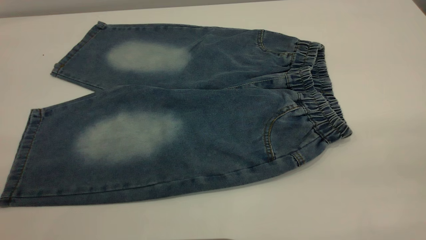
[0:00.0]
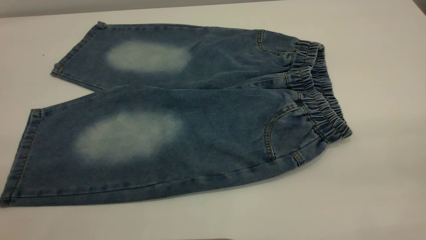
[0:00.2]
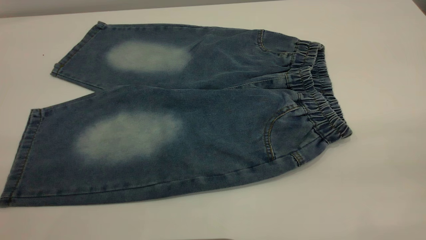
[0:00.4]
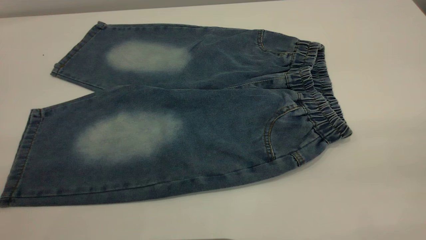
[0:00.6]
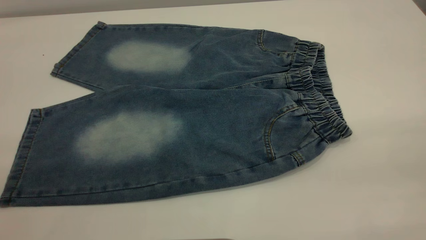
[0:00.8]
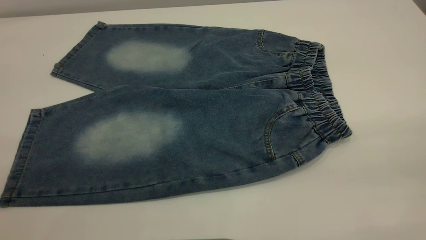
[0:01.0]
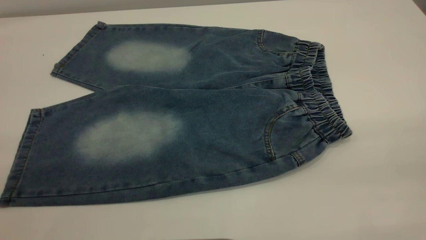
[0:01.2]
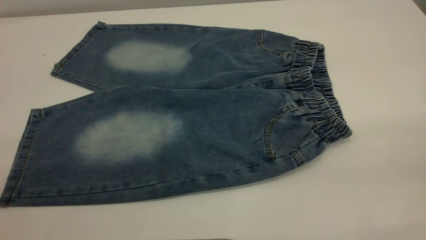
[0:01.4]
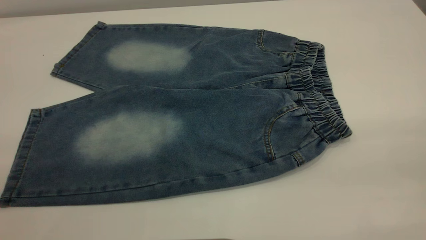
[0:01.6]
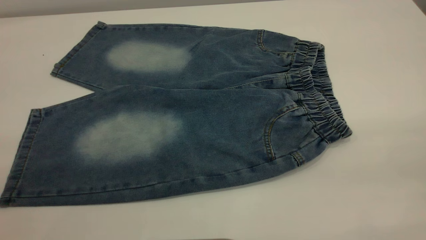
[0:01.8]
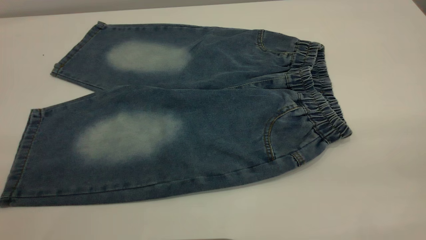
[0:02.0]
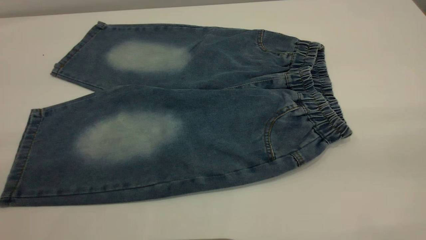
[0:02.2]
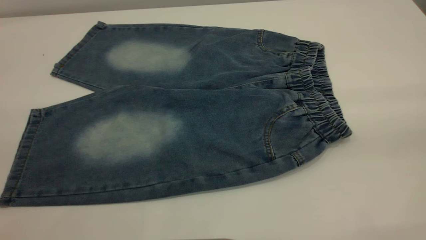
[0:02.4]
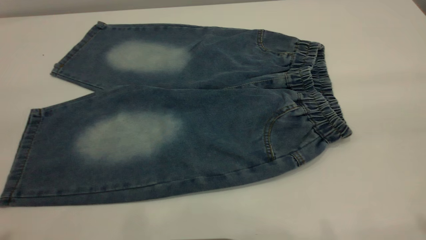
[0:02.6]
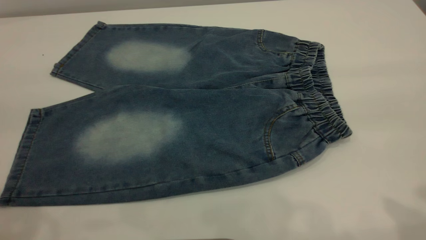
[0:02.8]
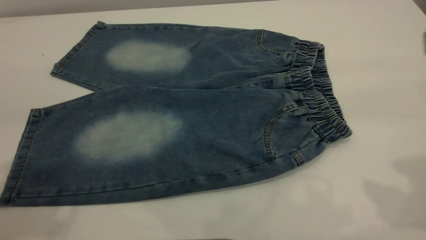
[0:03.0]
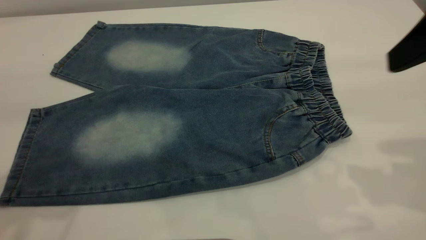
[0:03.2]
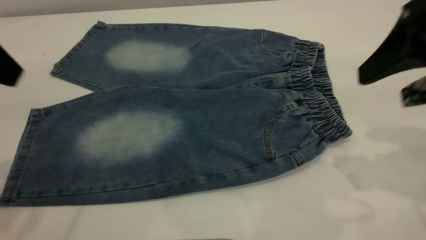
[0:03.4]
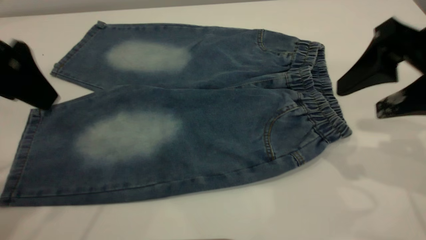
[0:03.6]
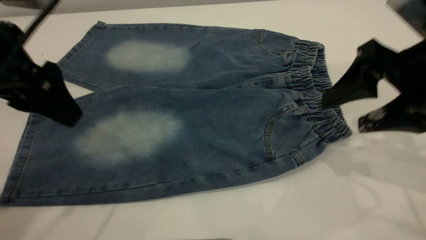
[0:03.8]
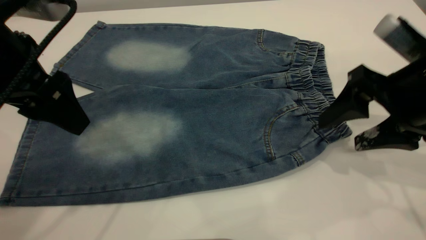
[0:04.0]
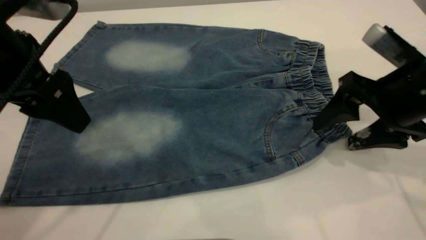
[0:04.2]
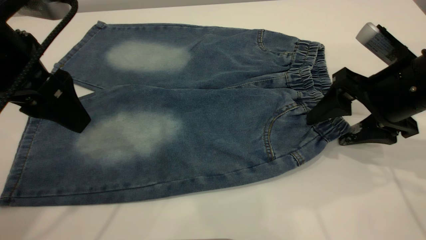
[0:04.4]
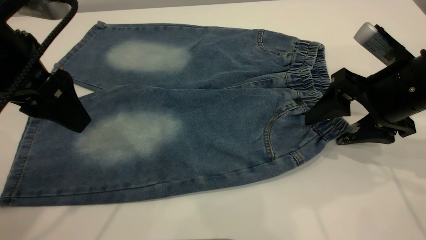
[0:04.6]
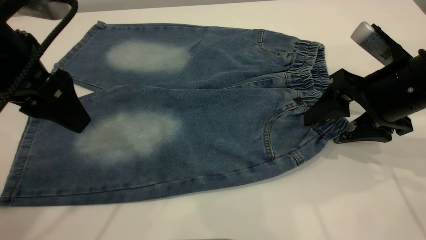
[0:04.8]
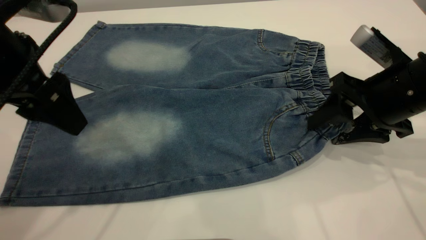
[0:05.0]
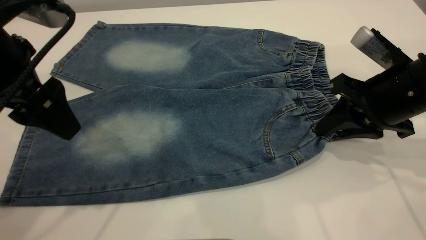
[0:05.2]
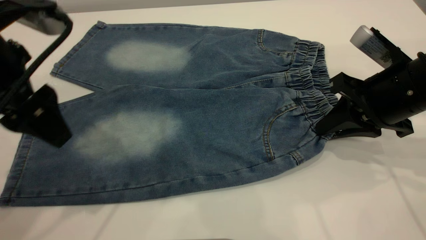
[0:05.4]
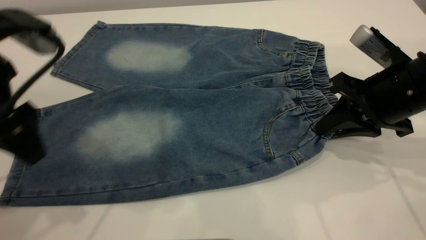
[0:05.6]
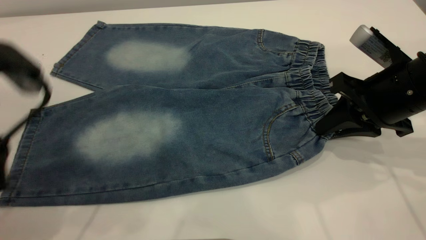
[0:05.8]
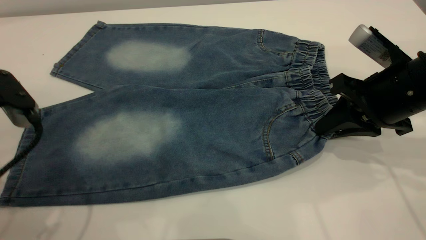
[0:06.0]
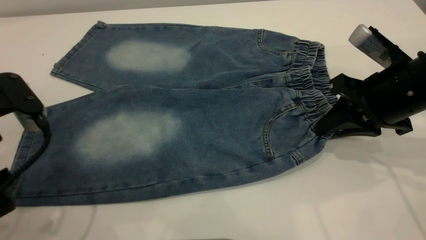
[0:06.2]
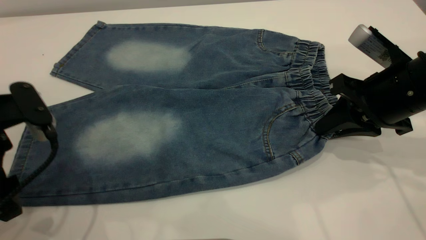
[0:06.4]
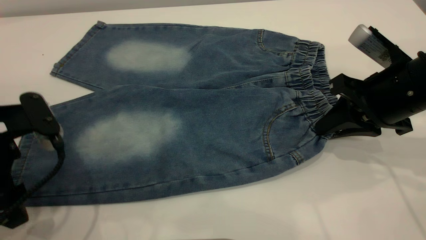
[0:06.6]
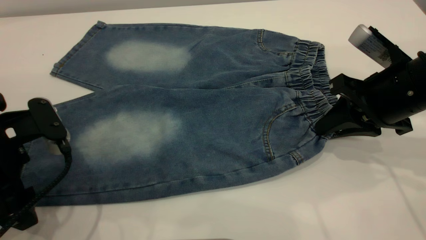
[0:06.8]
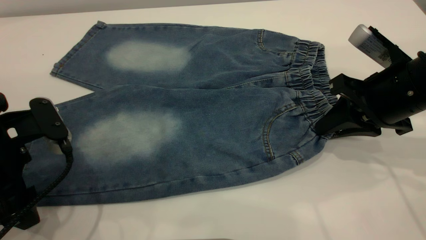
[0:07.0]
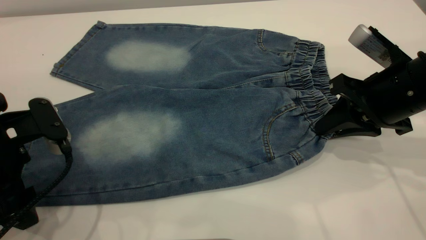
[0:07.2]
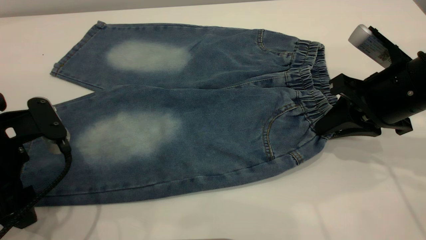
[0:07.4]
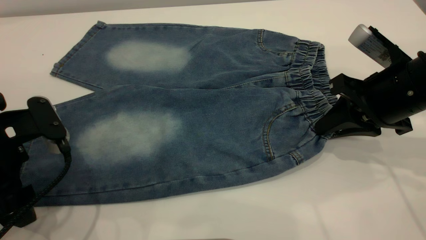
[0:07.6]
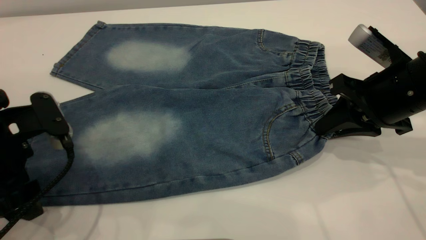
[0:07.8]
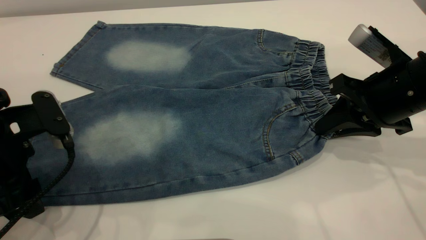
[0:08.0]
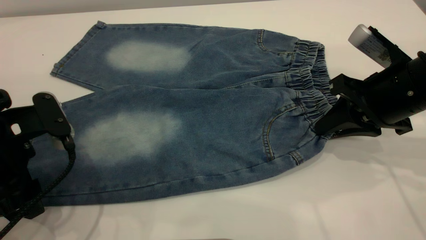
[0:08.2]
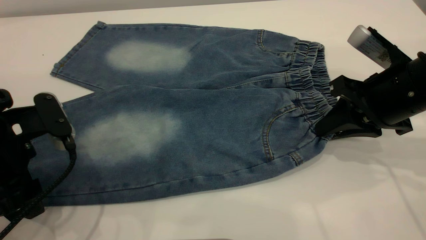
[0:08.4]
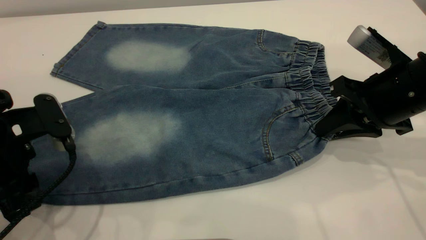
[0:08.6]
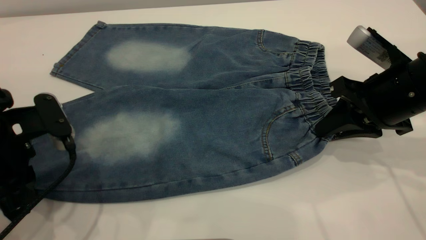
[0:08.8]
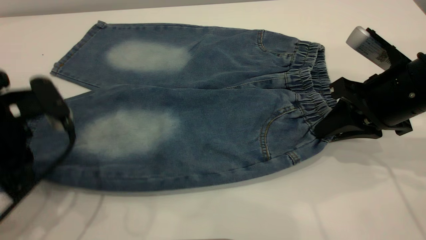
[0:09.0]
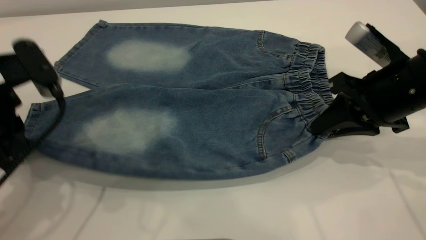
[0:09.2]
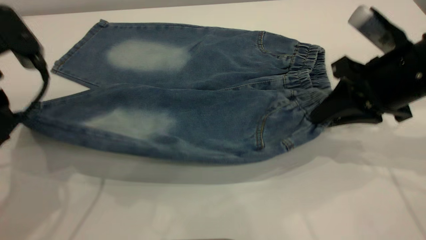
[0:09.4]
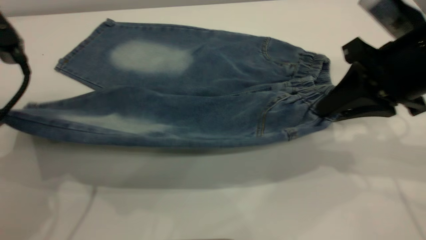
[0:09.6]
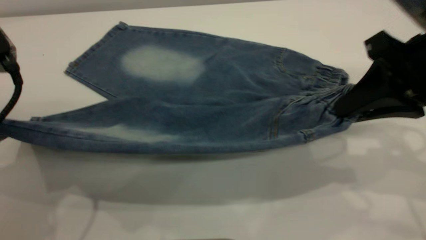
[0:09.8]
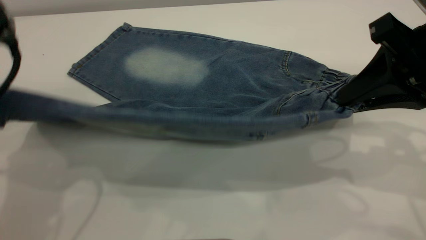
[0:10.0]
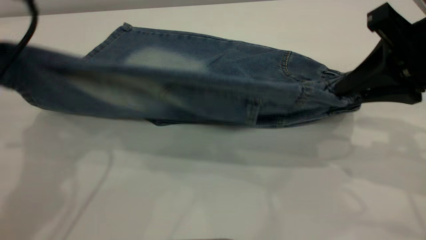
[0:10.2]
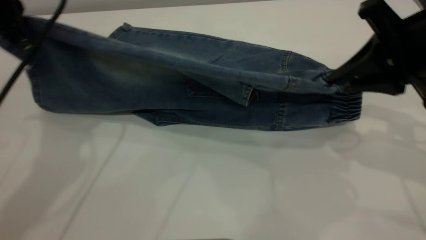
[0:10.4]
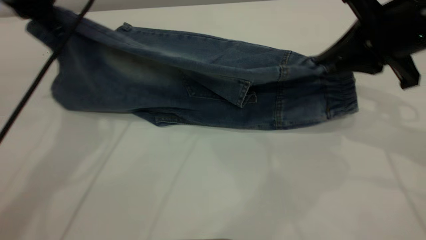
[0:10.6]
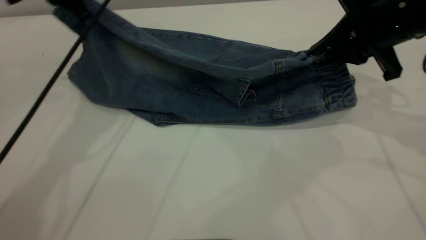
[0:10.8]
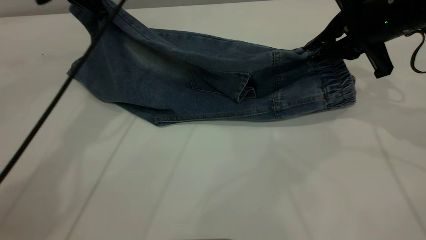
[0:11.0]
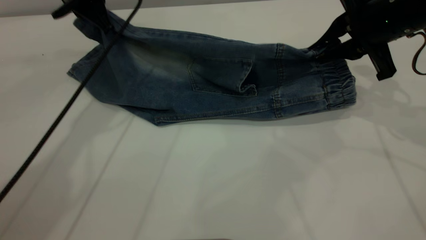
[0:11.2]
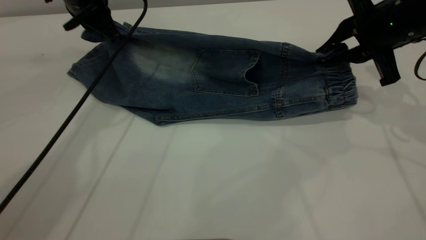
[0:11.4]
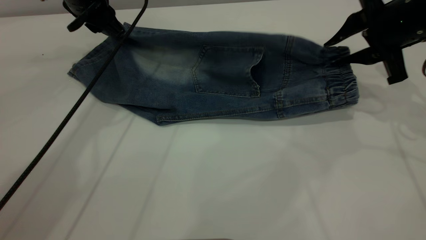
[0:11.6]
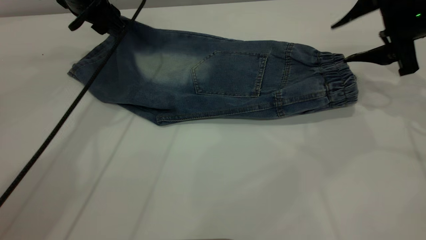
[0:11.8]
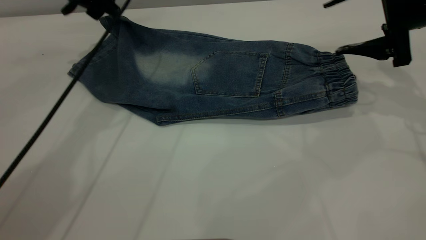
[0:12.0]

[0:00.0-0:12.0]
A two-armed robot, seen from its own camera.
Step, 0:00.0 to 0:11.8: Fold the bottom of the pants upward.
0:00.0 to 0:01.6: Both grippers stay about where they are.
0:03.0 to 0:04.4: The left gripper heads downward, forward and to the right, covering about 15 cm, while the right gripper travels downward and forward by roughly 20 cm.
0:04.4 to 0:06.0: The right gripper closes up, while the left gripper heads downward, covering approximately 5 cm.
0:06.0 to 0:07.6: The left gripper moves about 5 cm.
0:07.6 to 0:09.0: The left gripper closes its fingers.
0:09.0 to 0:10.4: The left gripper heads upward and forward, covering approximately 15 cm; the right gripper heads upward, covering approximately 10 cm.
0:10.4 to 0:12.0: The left gripper is displaced forward by roughly 15 cm, and opens. Meanwhile the right gripper heads forward, covering about 10 cm, and opens its fingers.

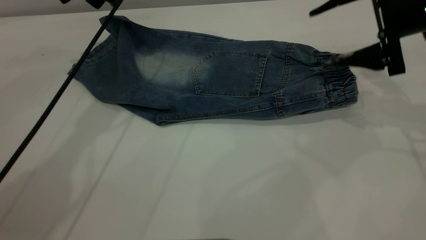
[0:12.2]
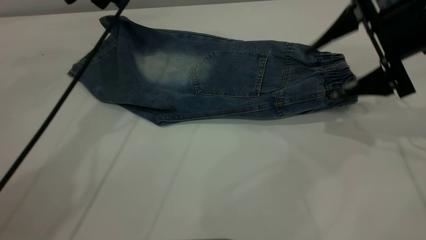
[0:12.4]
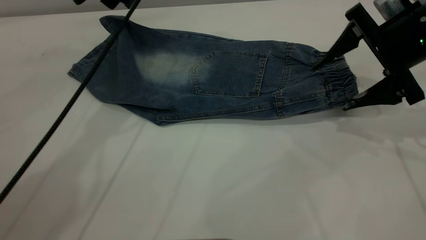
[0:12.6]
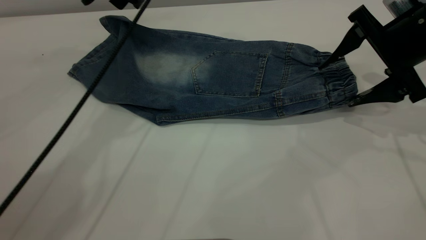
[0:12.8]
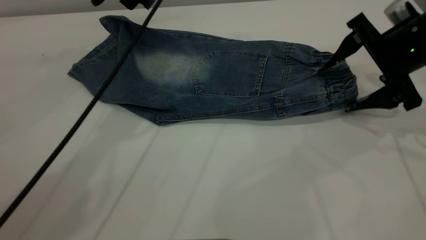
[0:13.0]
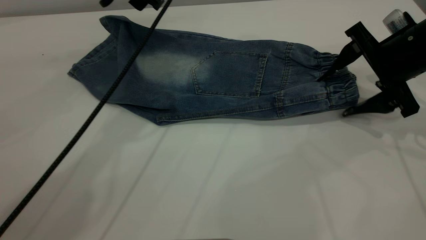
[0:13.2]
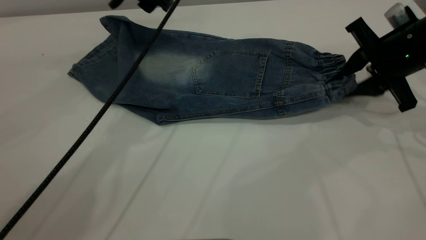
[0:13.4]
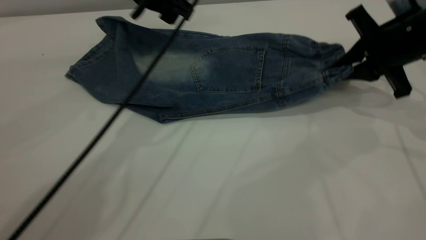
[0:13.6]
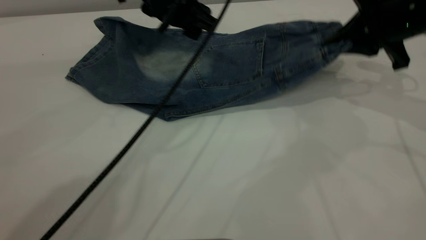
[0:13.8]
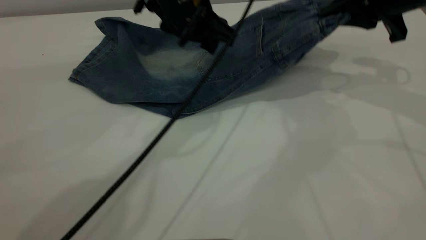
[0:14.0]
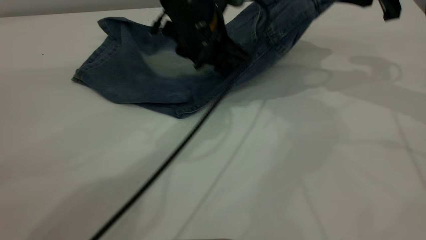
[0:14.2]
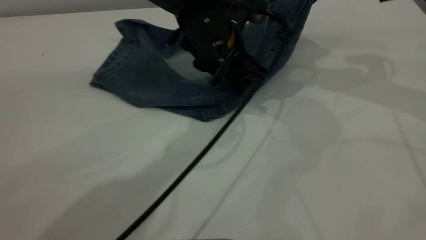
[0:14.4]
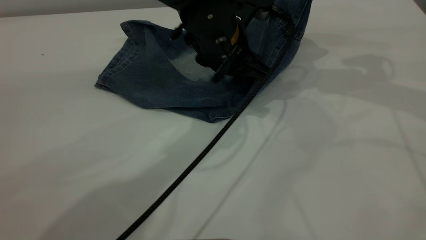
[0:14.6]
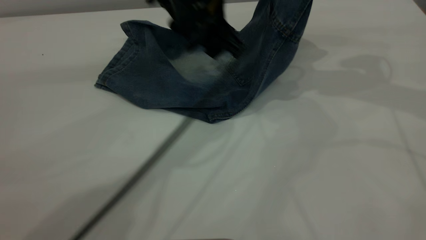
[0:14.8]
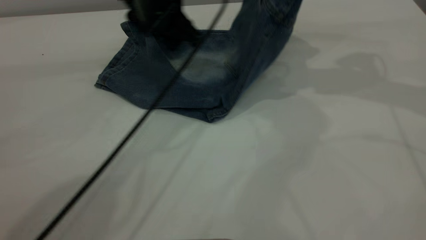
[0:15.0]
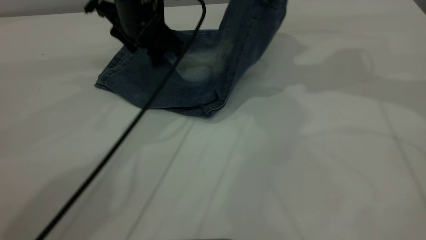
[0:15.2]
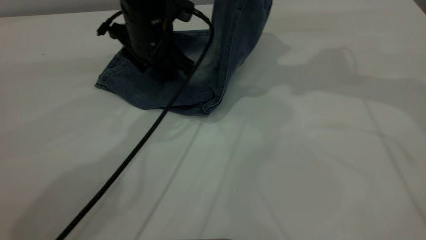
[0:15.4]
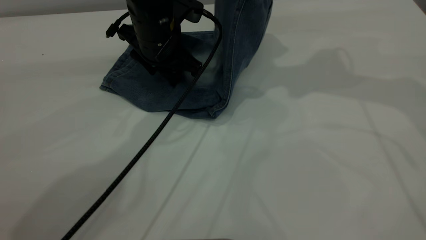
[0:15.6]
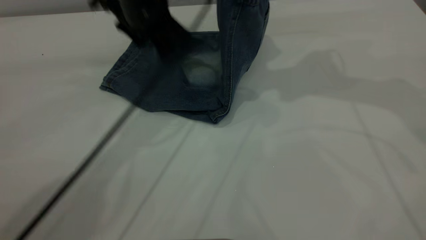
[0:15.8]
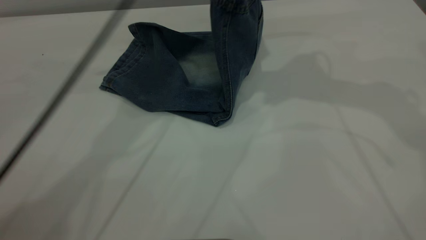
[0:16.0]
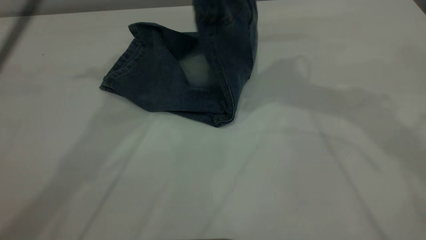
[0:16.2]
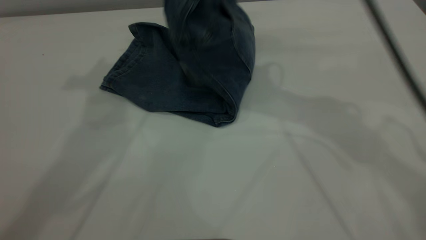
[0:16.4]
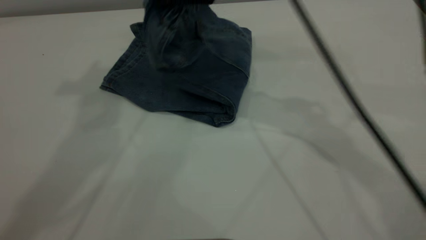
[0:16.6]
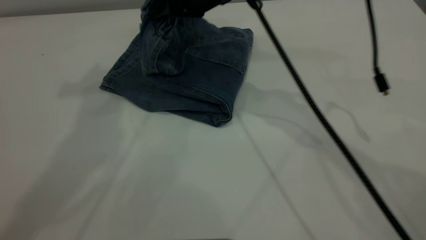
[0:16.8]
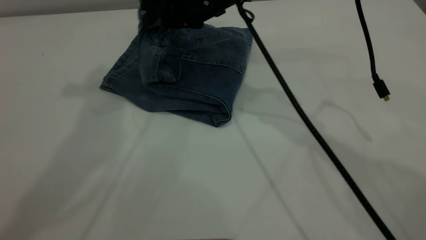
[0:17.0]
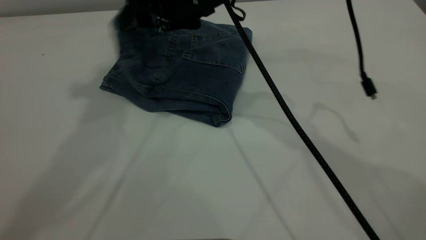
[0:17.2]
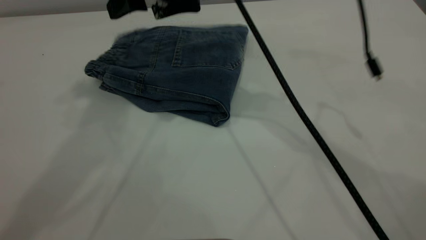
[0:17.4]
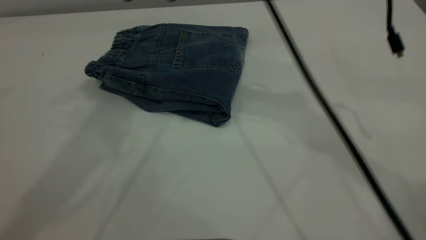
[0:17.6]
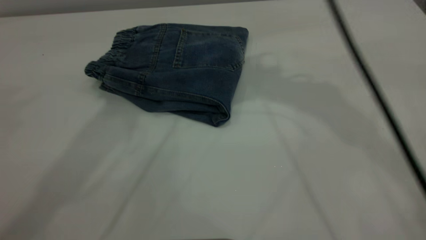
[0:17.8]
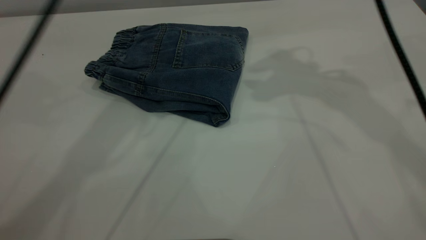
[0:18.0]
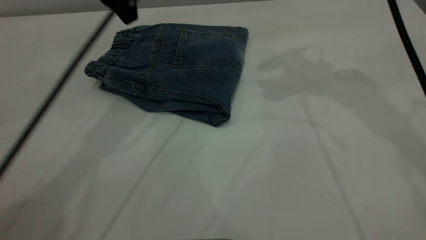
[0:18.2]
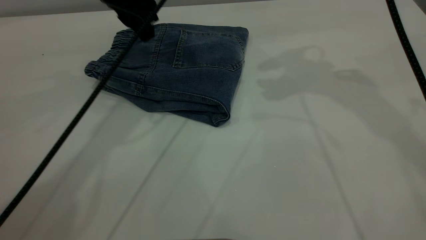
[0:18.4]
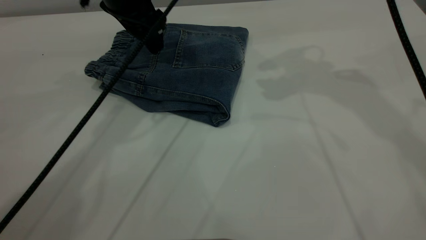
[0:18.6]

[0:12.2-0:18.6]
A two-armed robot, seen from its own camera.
Step, 0:12.2 to 0:17.6: Fold your pants from right to left.
0:12.2 to 0:13.8: The right gripper closes its fingers; the left gripper travels to the right and backward by about 15 cm.
0:13.8 to 0:15.4: The left gripper shifts approximately 5 cm downward, and moves about 5 cm to the right and comes back. Meanwhile the right gripper moves upward and to the left, approximately 15 cm.
0:15.4 to 0:17.0: The right gripper travels to the left and downward by about 25 cm, and opens, while the left gripper travels upward by about 30 cm.
0:17.0 to 0:18.6: The right gripper moves to the right and upward, some 20 cm, and opens its fingers. Meanwhile the left gripper shifts some 25 cm downward.
